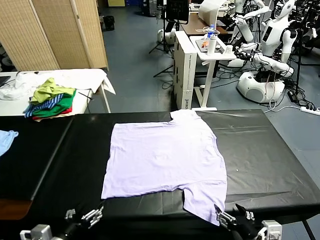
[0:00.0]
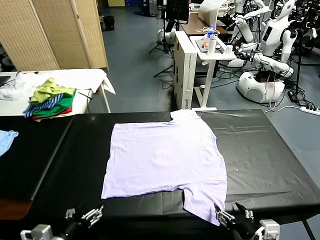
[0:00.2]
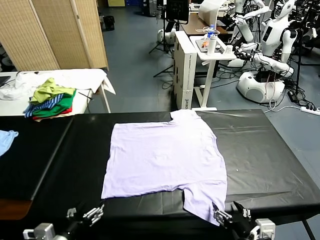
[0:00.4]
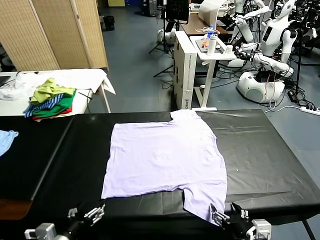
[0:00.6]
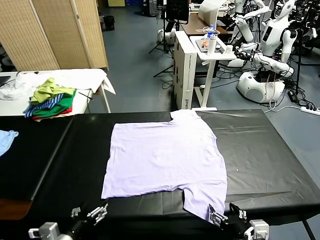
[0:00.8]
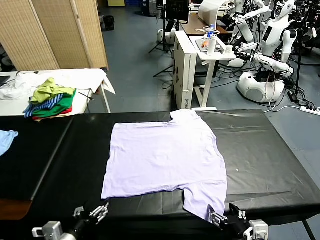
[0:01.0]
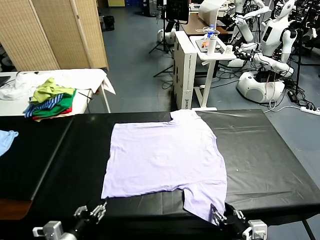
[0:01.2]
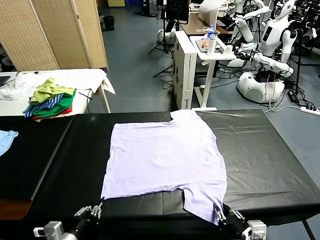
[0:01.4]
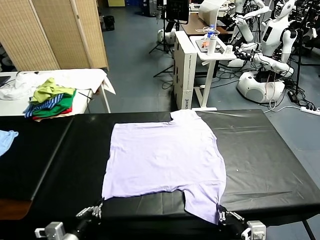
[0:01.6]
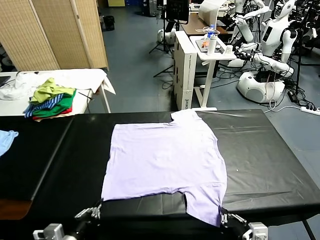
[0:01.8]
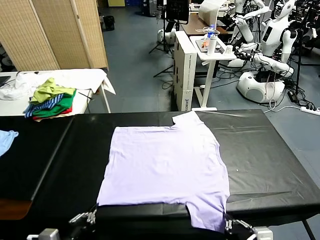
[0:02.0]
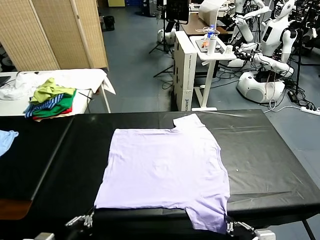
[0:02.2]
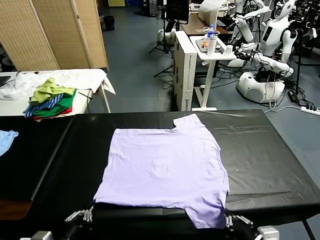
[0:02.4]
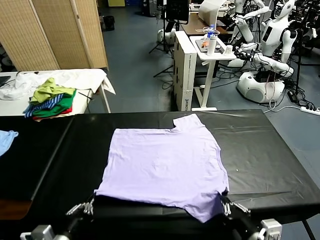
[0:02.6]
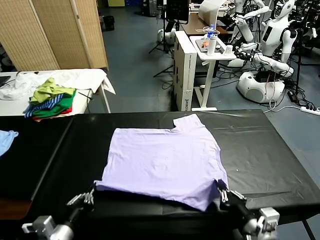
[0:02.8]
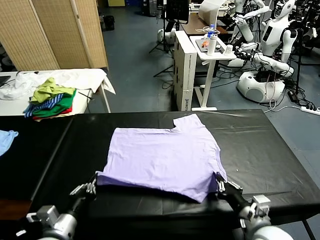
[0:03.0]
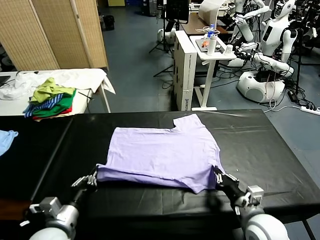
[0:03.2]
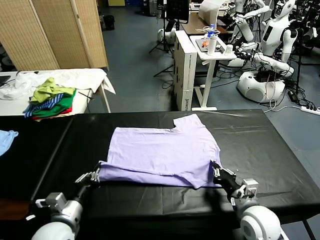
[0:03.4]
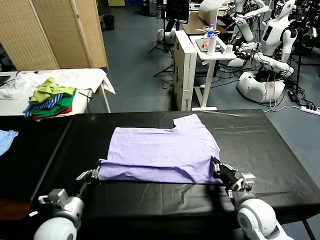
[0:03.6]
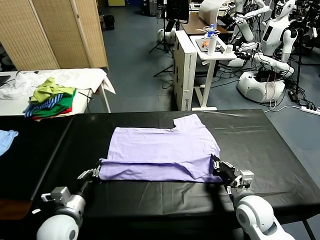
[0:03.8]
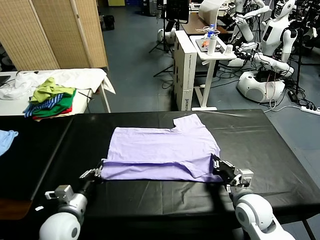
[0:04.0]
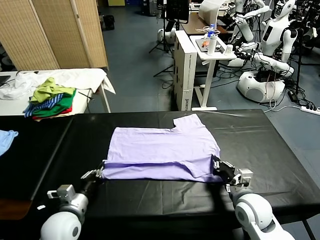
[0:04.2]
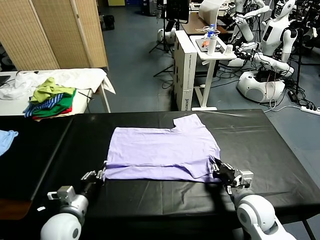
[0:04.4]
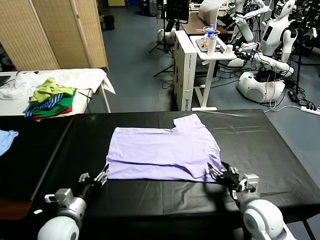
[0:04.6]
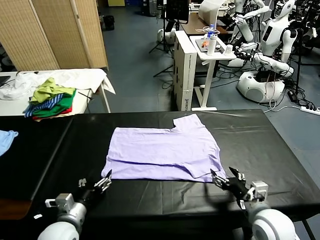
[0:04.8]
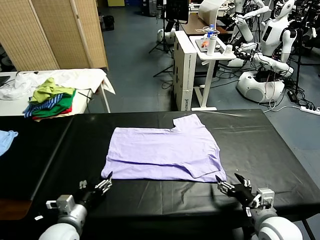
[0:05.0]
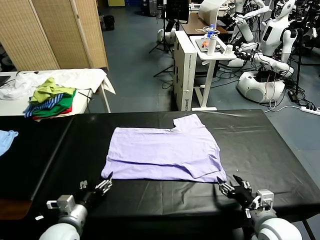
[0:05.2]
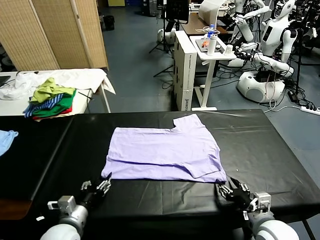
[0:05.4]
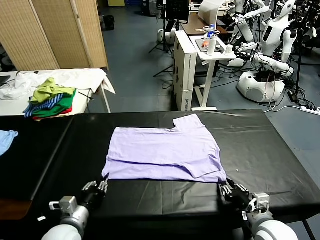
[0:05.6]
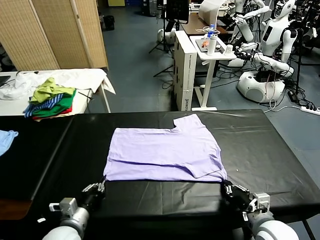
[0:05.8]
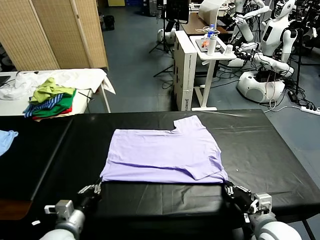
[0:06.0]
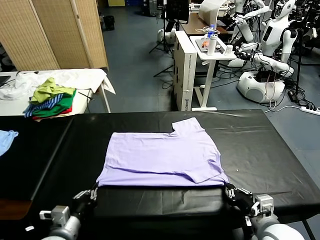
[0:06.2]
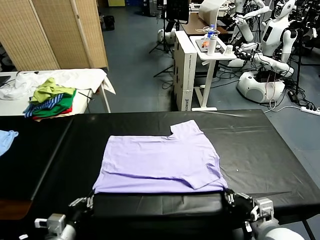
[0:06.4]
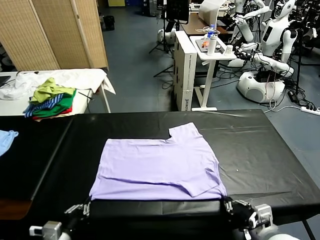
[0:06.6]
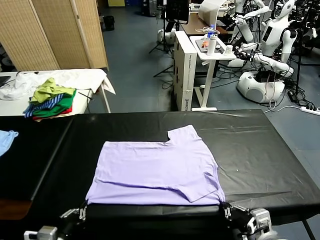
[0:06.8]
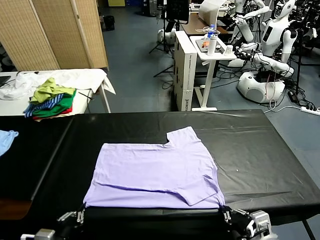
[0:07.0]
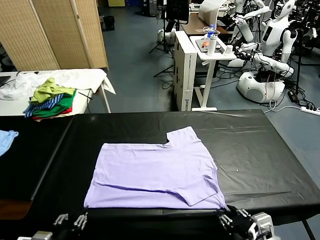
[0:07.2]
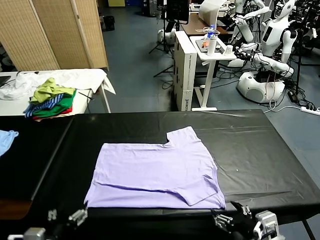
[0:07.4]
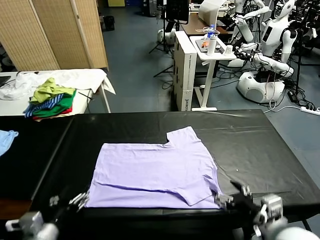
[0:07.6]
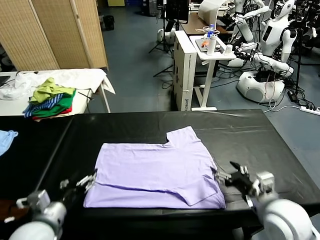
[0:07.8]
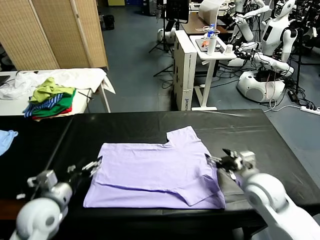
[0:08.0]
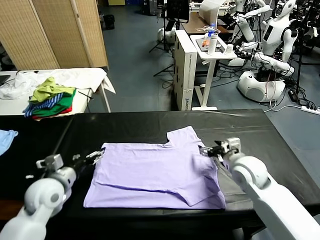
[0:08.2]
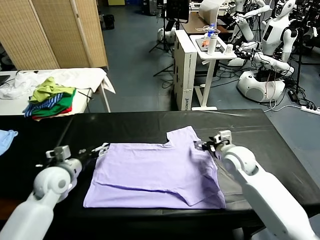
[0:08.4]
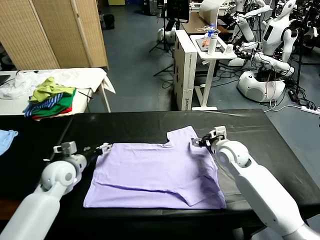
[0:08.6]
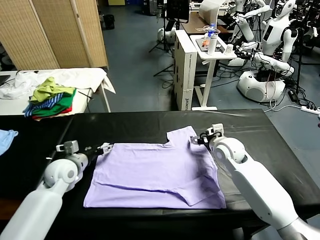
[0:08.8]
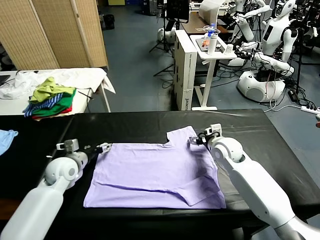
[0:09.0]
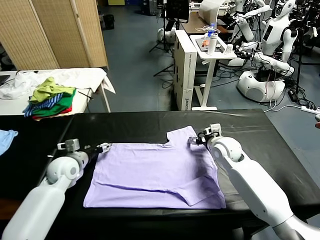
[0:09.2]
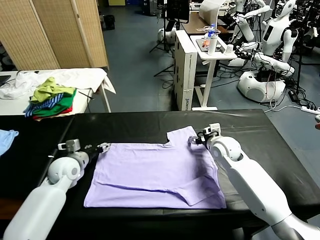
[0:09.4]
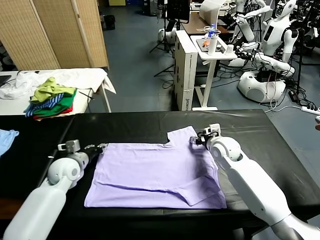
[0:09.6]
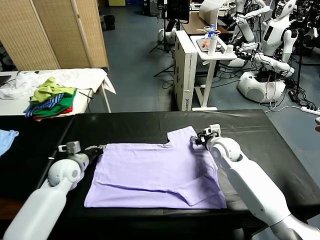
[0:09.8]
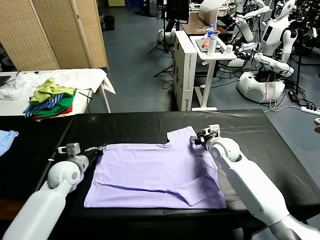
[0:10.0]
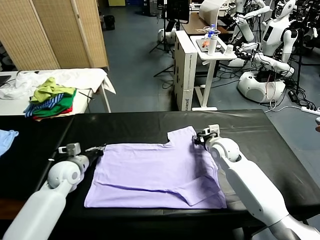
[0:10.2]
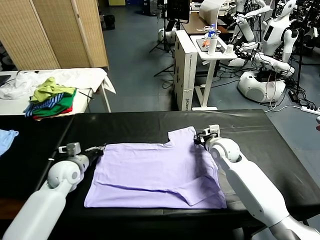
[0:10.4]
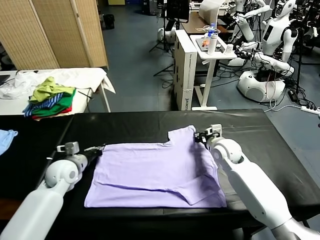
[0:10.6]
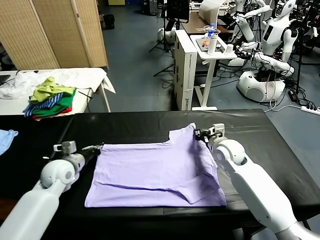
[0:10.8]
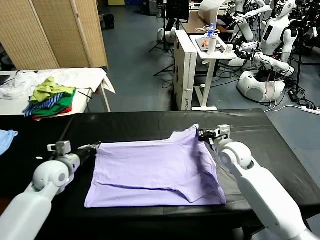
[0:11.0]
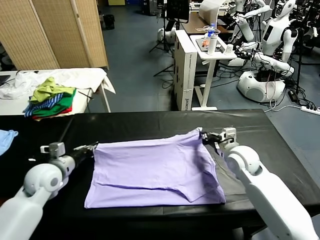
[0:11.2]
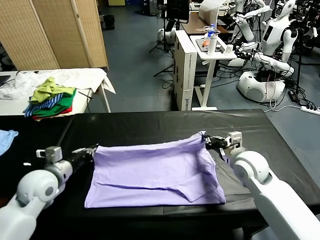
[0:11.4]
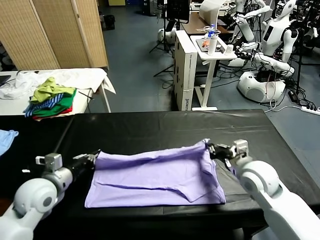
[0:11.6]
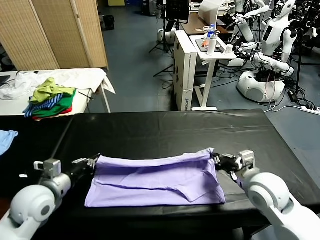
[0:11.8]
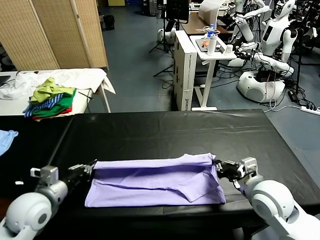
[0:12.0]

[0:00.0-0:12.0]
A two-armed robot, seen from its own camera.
Task of the whole recording: fold and organize the clothes.
Step, 0:00.0 to 0:01.6: use both grippers simultaneously to clamp the lower edge of the clothing fabric.
Step, 0:01.8 to 0:04.6: use both grippers to drag the lower edge of the fabric forward and fold it over the upper edge.
Step, 0:04.8 to 0:07.2: Drag the clothes downward with both gripper.
Step, 0:07.4 to 0:10.4: use both grippers simultaneously to clamp the upper edge of the clothing fabric.
0:01.6 to 0:03.0: The left gripper heads forward, covering approximately 5 cm, while the right gripper travels forward by some 15 cm.
0:03.0 to 0:04.4: The left gripper changes place by some 5 cm, and opens its fingers. Meanwhile the right gripper opens up.
0:04.4 to 0:06.0: The left gripper closes up; the right gripper changes place by about 5 cm, and closes up.
0:06.0 to 0:07.6: The right gripper is displaced forward by some 10 cm, and opens up; the left gripper moves upward, some 5 cm, travels backward and back again, approximately 5 cm each way, and opens.
0:07.6 to 0:09.0: Both grippers travel together forward, approximately 20 cm.
0:09.0 to 0:10.4: The left gripper closes up. Meanwhile the right gripper closes.
0:10.4 to 0:12.0: The grippers both shift backward by approximately 20 cm.

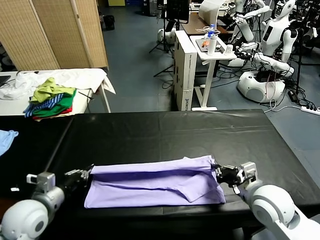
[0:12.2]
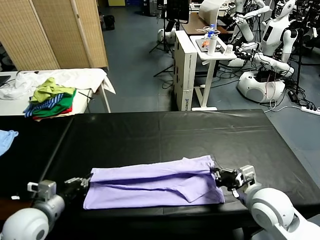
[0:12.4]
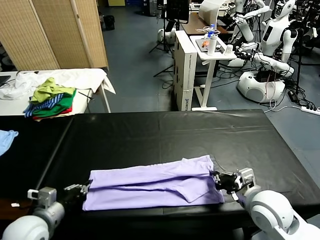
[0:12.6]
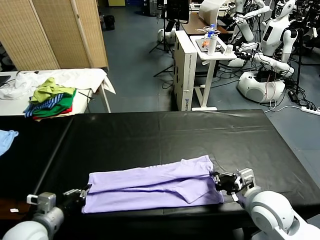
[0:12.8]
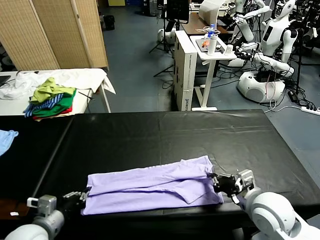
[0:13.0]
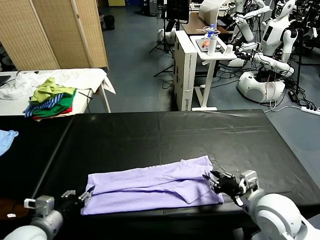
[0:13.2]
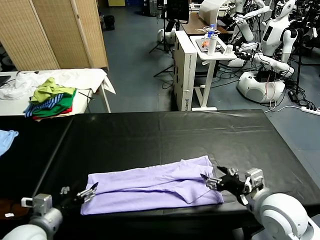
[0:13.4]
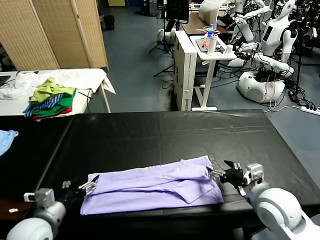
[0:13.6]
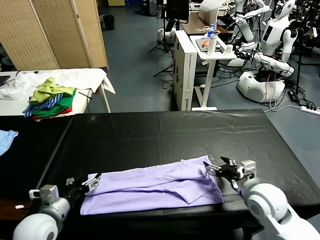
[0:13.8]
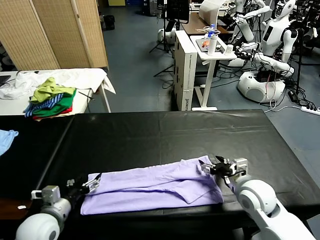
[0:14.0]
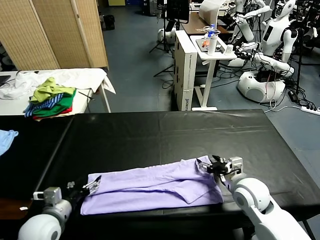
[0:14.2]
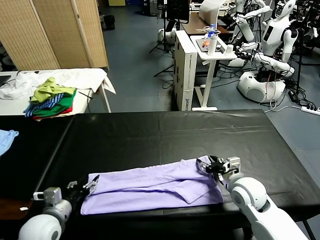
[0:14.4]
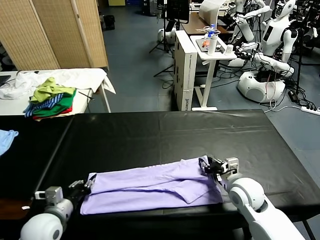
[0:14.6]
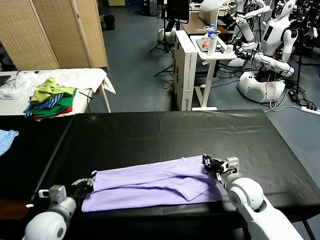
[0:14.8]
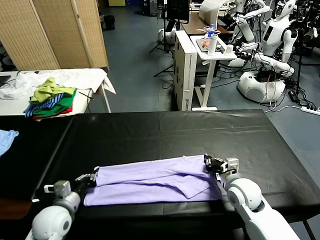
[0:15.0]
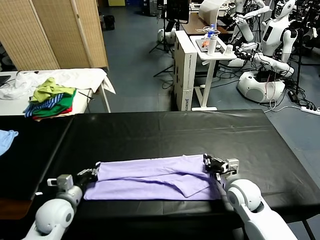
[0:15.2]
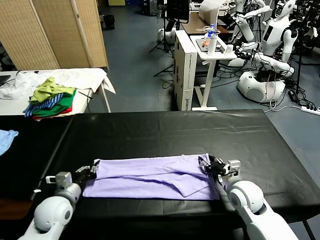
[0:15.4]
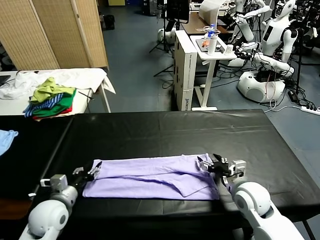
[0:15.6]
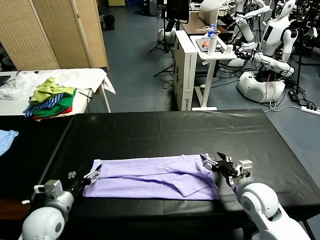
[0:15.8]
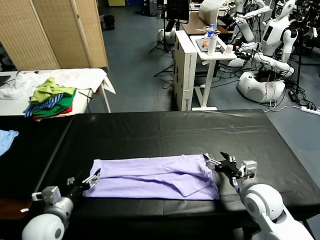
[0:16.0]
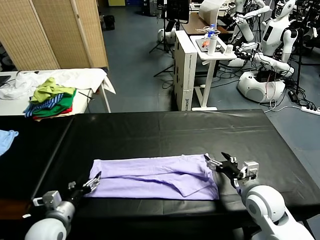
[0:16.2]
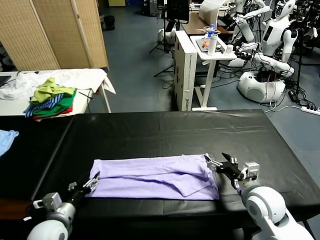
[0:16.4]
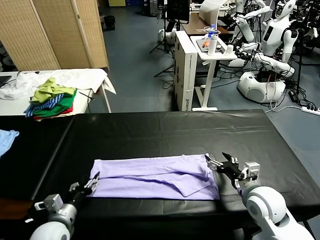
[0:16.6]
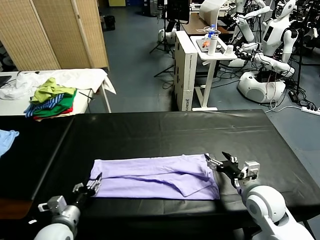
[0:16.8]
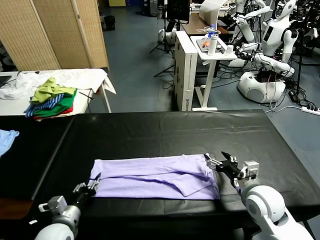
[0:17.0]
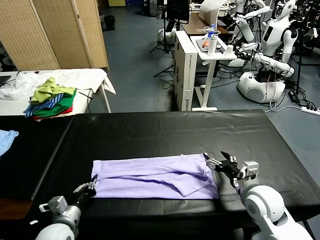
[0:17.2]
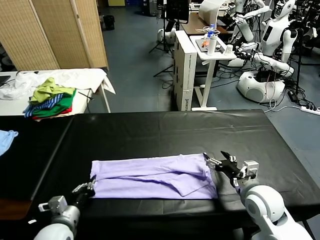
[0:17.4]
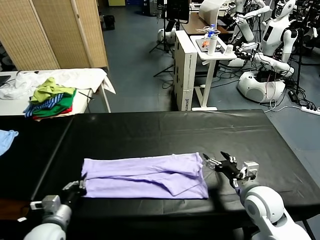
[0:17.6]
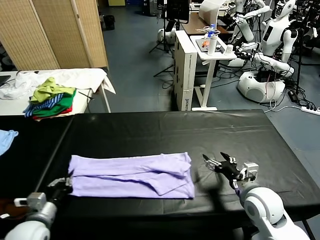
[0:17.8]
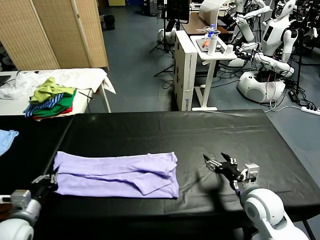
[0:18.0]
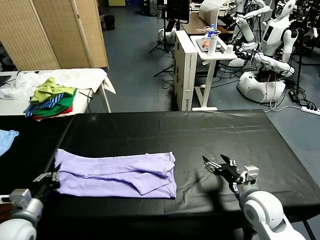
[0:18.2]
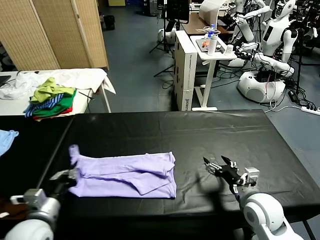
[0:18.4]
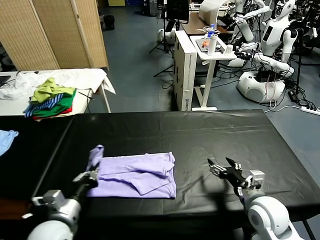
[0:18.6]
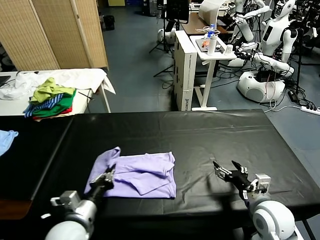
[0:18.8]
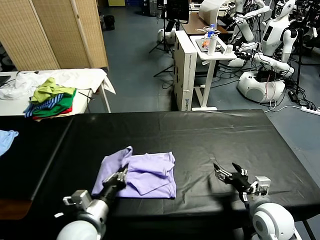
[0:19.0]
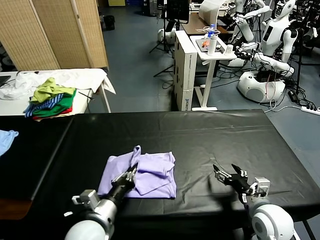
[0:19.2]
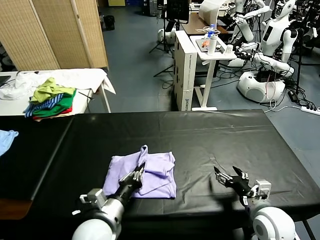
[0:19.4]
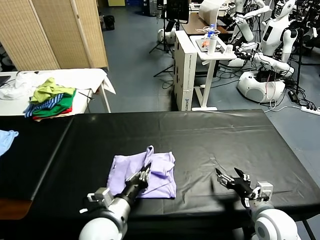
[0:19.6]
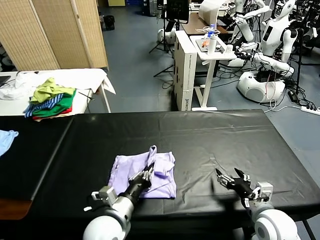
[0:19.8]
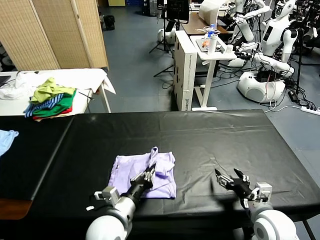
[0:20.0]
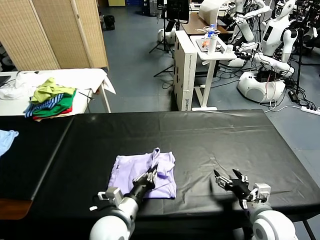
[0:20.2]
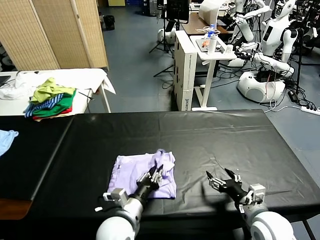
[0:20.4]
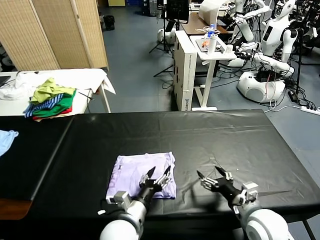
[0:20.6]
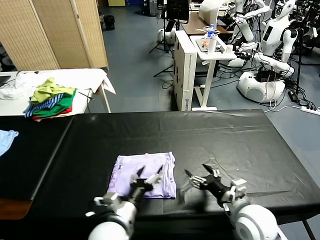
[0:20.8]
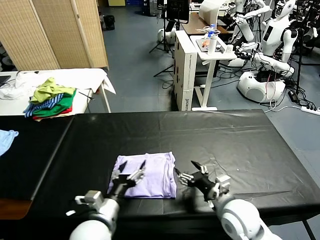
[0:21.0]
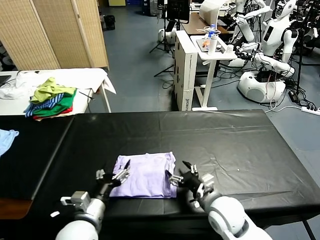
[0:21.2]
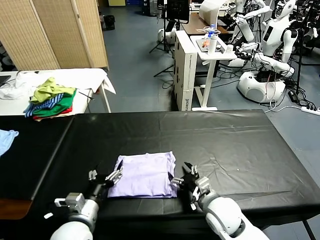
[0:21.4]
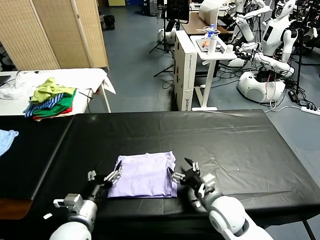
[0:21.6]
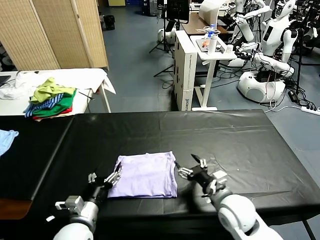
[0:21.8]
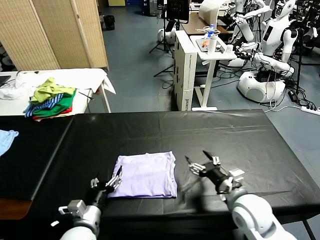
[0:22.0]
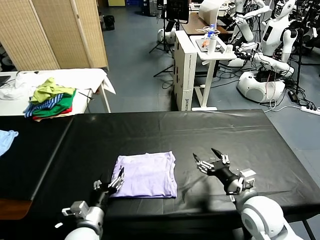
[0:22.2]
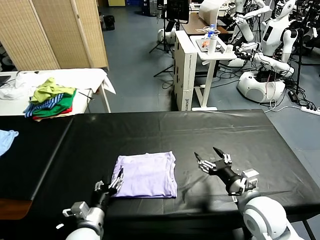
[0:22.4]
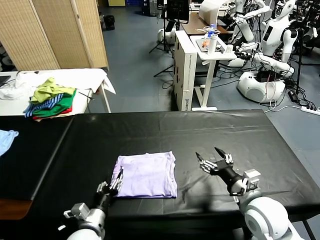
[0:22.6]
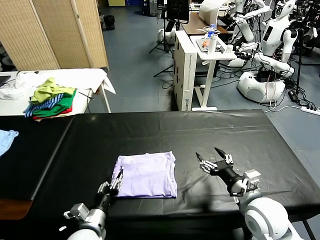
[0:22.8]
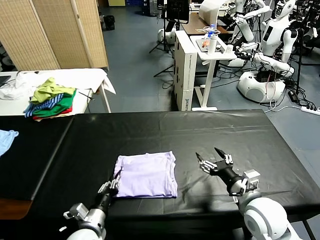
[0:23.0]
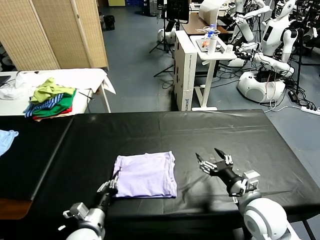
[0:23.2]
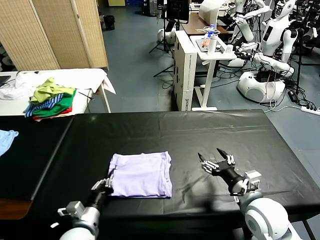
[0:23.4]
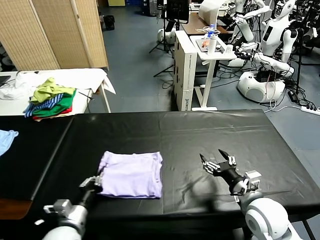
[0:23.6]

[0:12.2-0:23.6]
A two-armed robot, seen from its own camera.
Task of the whole recording: fold and organize the clothes.
Step, 0:13.4 to 0:17.2: use the left gripper to clamp the left edge of the fabric.
Step, 0:17.4 to 0:20.4: use the left gripper to drag the left edge of the fabric to the left and folds it over the right edge.
0:12.2 to 0:13.6: The right gripper shifts by about 5 cm, and opens its fingers. The left gripper opens its fingers.
0:13.6 to 0:15.0: The right gripper moves downward, roughly 5 cm, and closes its fingers, while the left gripper moves forward and downward, roughly 10 cm, and closes up.
0:15.0 to 0:16.4: The left gripper travels backward by approximately 5 cm, and opens up, while the right gripper changes place by roughly 5 cm, and opens.
0:16.4 to 0:17.8: The left gripper travels to the left by approximately 10 cm, and closes its fingers.
0:17.8 to 0:19.4: The right gripper changes place by roughly 5 cm. The left gripper heads to the right, covering about 25 cm.
0:19.4 to 0:20.8: The right gripper goes some 10 cm to the left. The left gripper opens up.
0:20.8 to 0:22.2: The right gripper moves to the right, approximately 5 cm; the left gripper moves downward, some 10 cm.
0:22.2 to 0:23.6: The left gripper moves to the left and upward, about 15 cm, and closes up.
